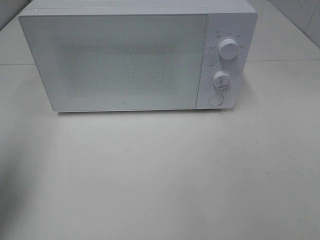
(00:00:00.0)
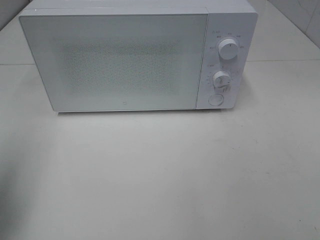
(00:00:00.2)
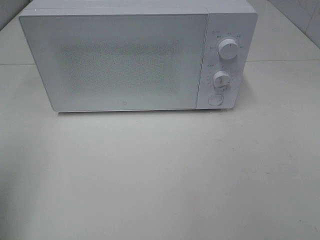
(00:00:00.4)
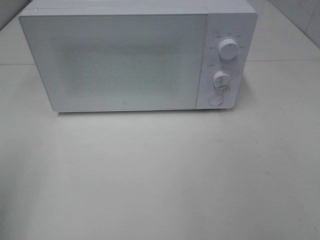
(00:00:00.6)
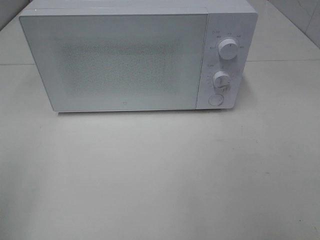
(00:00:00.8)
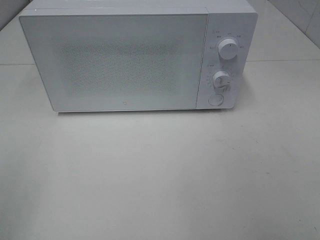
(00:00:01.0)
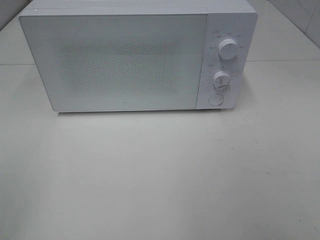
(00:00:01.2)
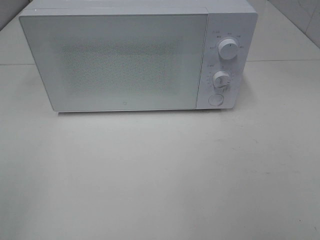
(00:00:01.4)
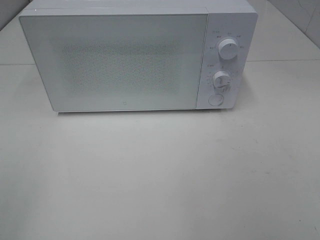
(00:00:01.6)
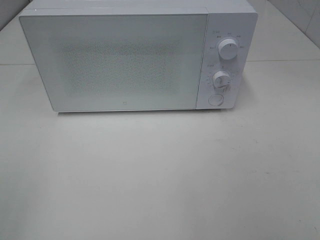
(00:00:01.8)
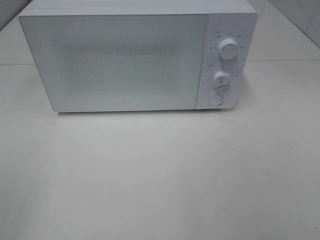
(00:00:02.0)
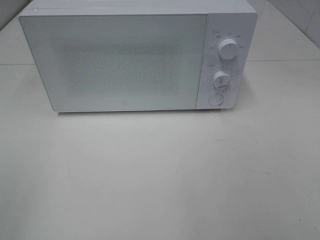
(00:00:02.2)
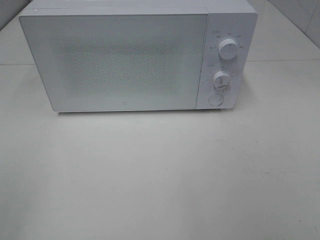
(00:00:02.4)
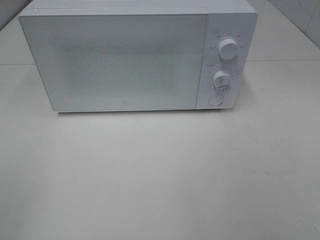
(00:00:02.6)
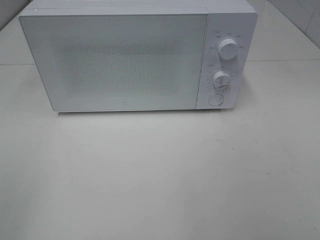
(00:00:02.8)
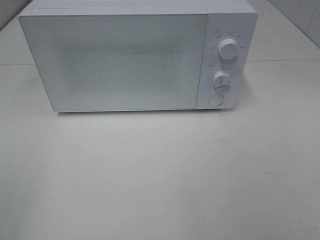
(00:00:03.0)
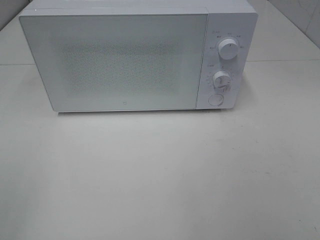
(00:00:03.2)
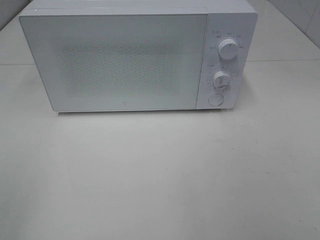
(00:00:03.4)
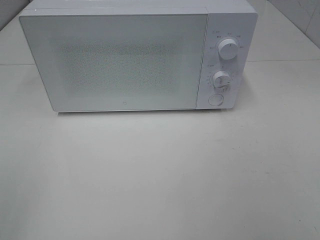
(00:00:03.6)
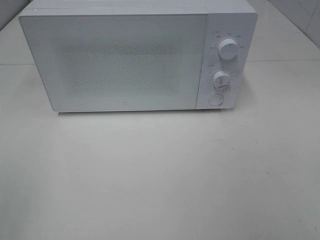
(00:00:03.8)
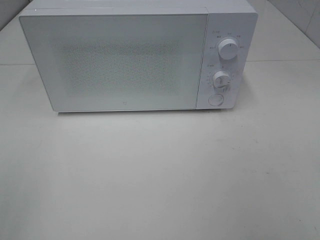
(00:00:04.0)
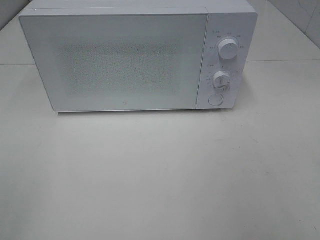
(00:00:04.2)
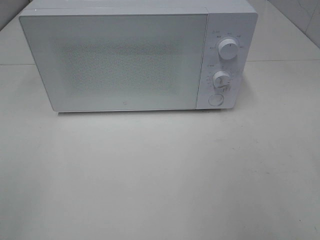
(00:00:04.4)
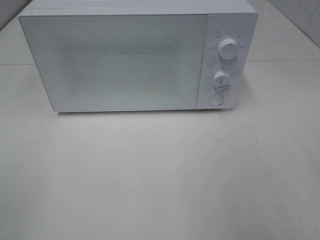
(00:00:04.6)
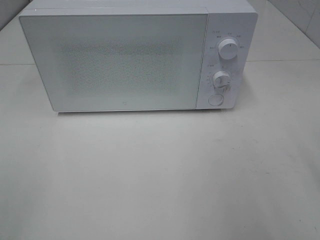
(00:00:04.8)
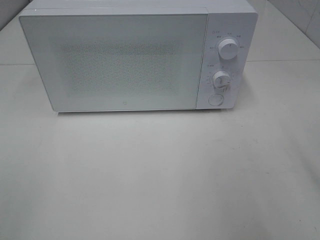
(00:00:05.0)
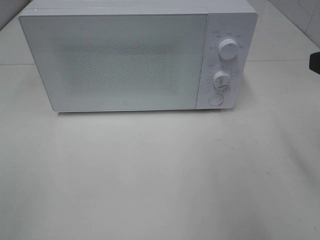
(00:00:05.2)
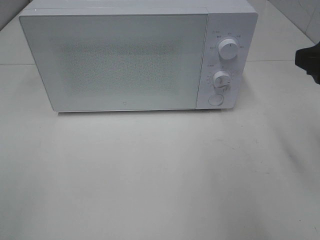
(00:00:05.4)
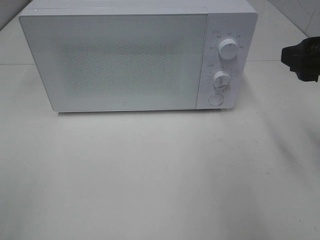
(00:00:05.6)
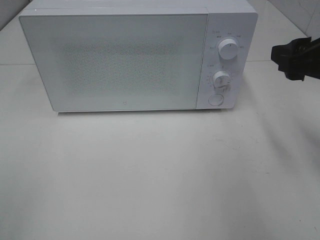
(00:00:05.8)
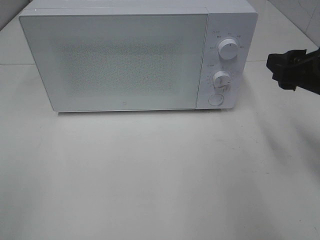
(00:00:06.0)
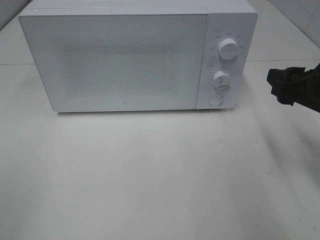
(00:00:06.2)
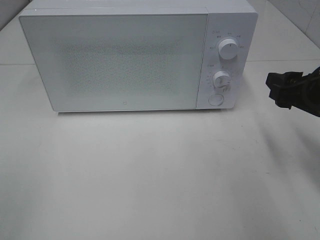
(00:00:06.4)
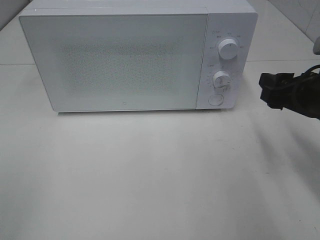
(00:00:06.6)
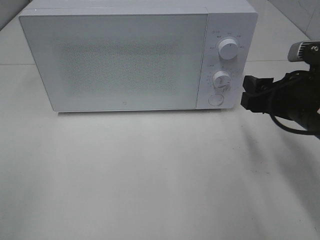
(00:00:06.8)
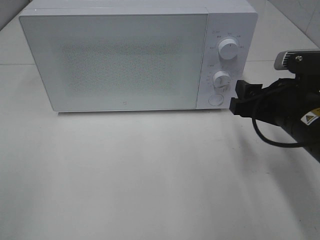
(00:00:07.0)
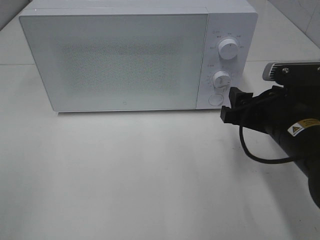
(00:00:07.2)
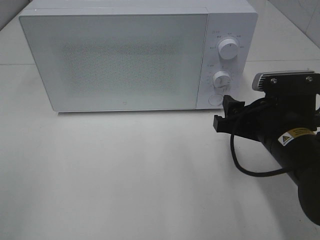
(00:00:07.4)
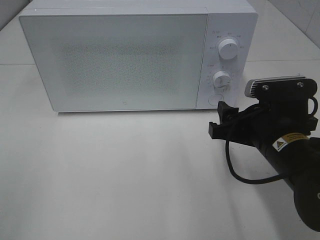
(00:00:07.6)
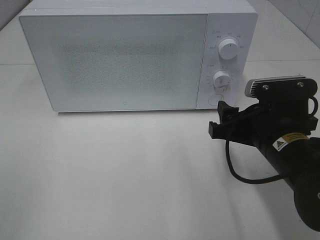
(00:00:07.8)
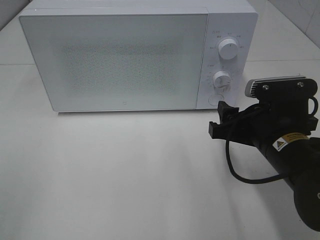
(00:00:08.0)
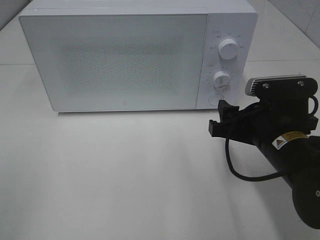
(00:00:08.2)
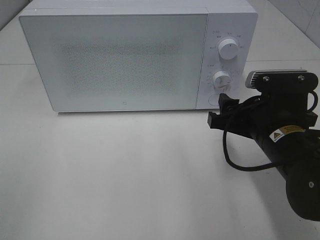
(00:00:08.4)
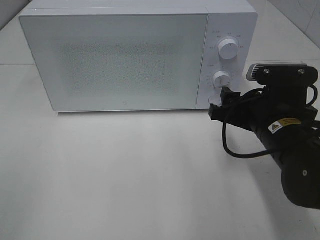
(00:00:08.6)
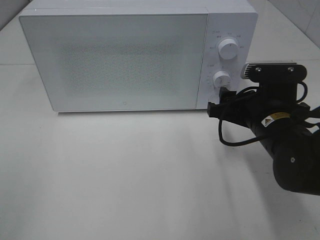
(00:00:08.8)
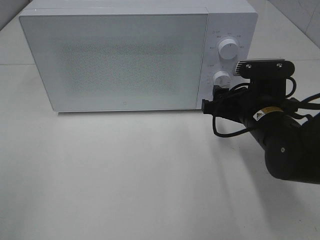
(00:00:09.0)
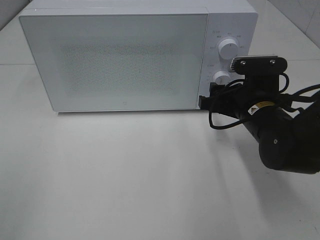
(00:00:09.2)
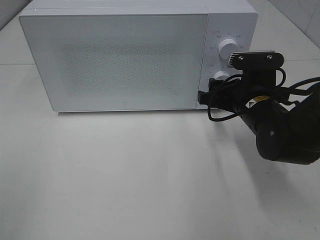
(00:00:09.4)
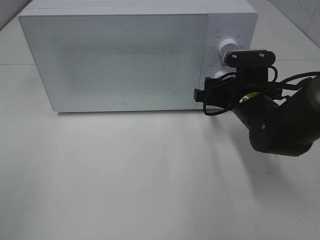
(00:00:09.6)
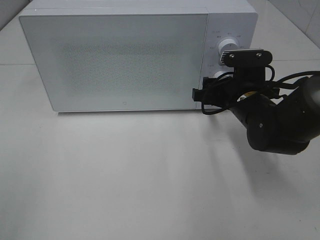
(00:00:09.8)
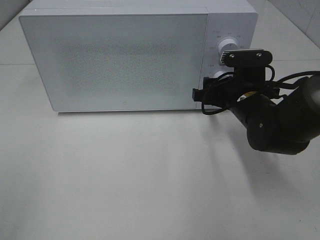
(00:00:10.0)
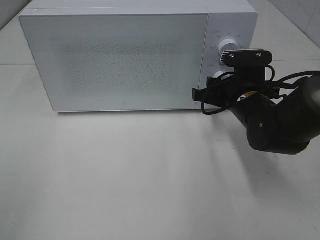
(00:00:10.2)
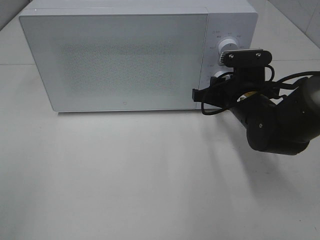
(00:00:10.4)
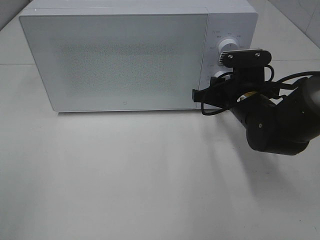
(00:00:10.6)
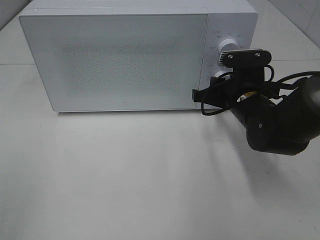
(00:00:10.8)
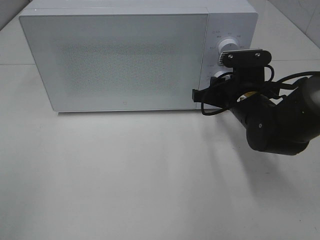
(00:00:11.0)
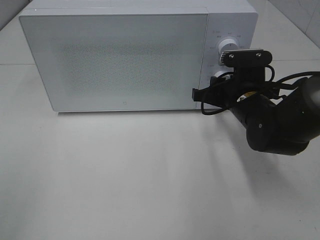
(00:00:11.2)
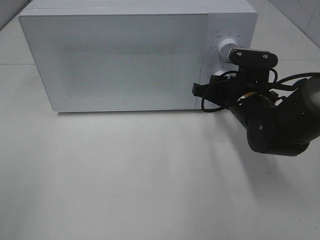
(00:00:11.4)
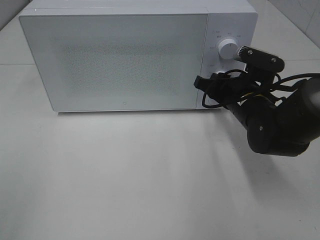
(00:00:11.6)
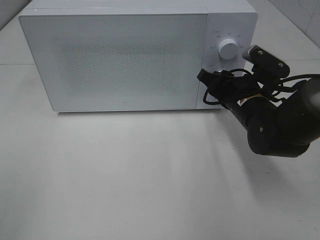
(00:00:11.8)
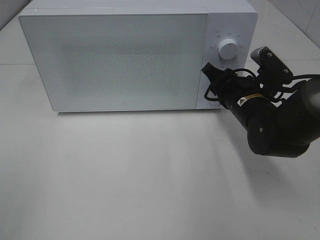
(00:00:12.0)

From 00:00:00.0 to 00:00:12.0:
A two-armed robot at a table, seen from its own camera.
Task of the whole recording: Heat Sandwich.
From 00:00:00.0 to 00:00:01.6: The left gripper goes about 20 cm backward.
From 00:00:01.6 to 00:00:03.0: The two grippers keep their place.
From 00:00:04.4 to 00:00:06.0: The right gripper heads forward and downward, covering roughly 15 cm.
From 00:00:06.0 to 00:00:07.6: The right gripper is displaced downward and to the left by approximately 10 cm.
From 00:00:07.6 to 00:00:09.0: The right gripper heads forward, covering approximately 5 cm.
From 00:00:09.0 to 00:00:10.4: The right gripper shifts approximately 5 cm forward, and closes its fingers.

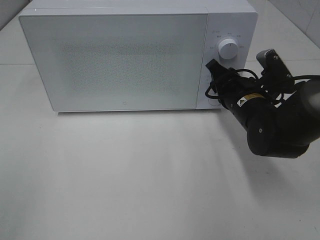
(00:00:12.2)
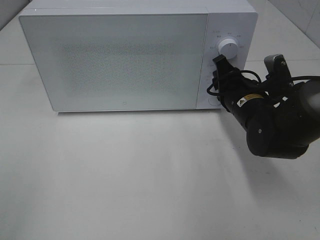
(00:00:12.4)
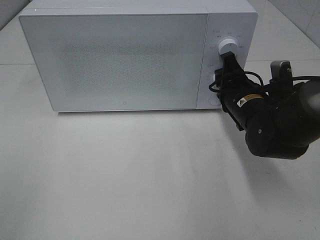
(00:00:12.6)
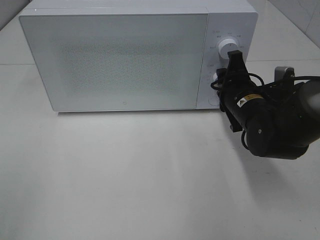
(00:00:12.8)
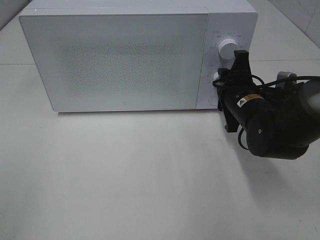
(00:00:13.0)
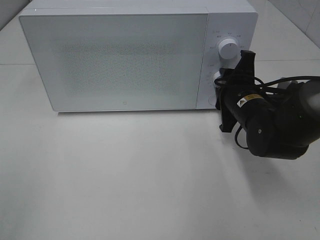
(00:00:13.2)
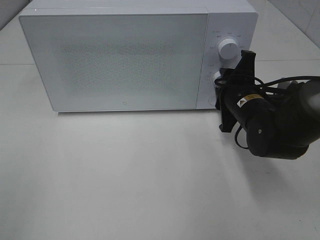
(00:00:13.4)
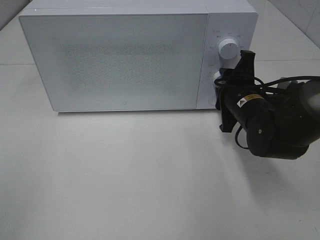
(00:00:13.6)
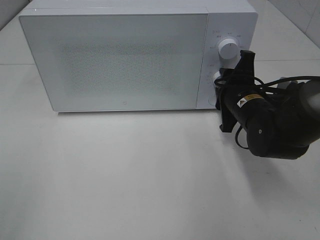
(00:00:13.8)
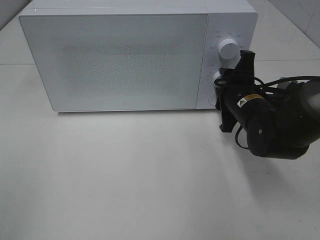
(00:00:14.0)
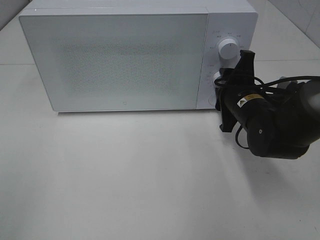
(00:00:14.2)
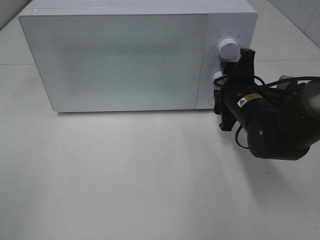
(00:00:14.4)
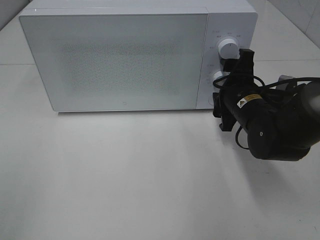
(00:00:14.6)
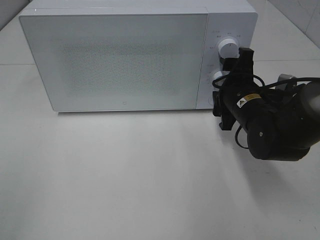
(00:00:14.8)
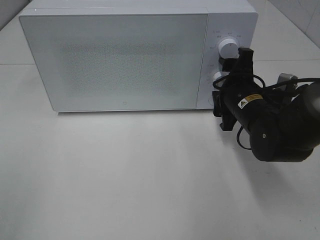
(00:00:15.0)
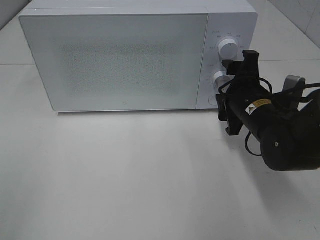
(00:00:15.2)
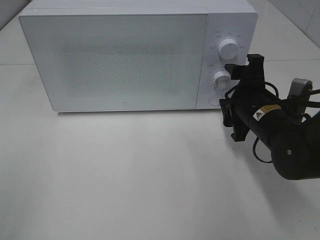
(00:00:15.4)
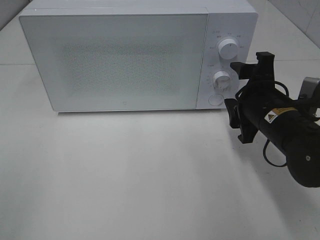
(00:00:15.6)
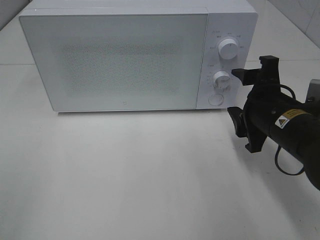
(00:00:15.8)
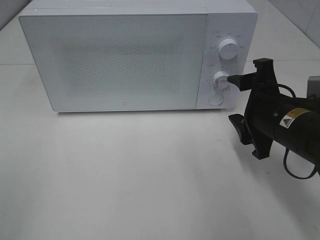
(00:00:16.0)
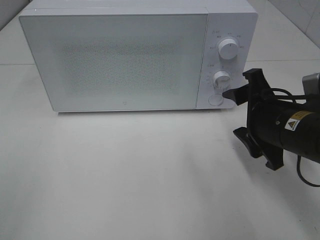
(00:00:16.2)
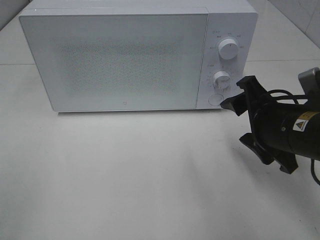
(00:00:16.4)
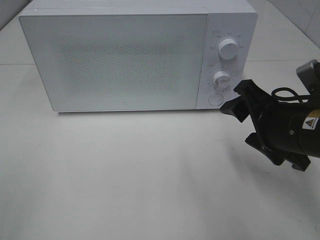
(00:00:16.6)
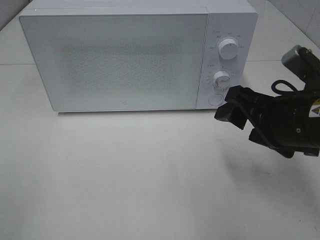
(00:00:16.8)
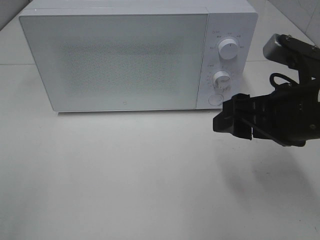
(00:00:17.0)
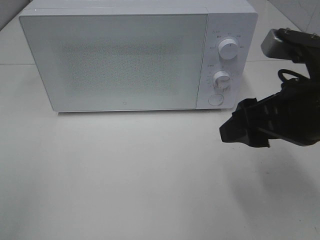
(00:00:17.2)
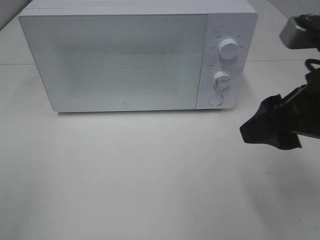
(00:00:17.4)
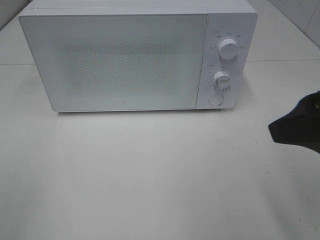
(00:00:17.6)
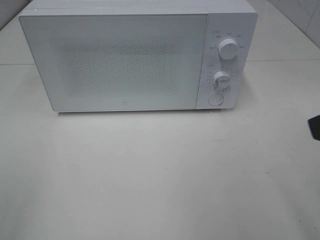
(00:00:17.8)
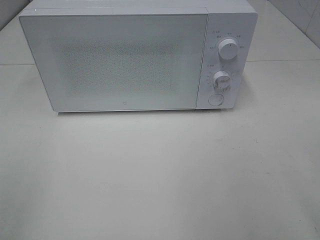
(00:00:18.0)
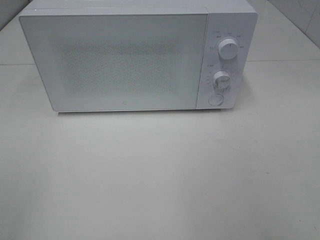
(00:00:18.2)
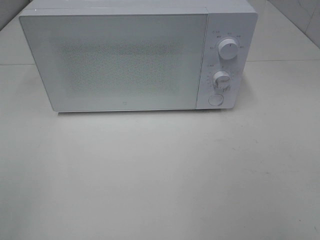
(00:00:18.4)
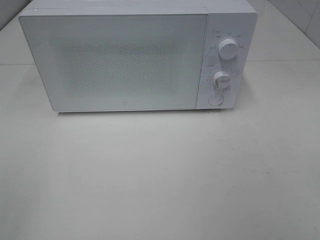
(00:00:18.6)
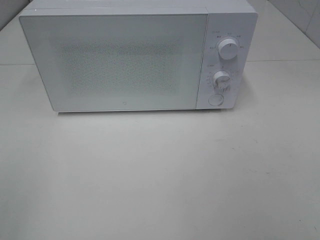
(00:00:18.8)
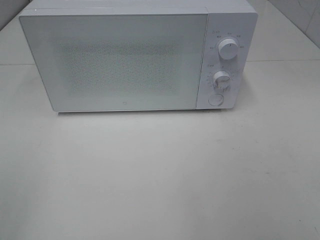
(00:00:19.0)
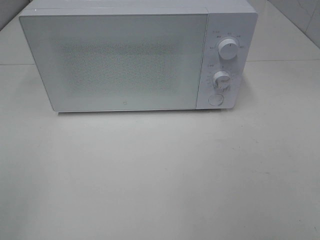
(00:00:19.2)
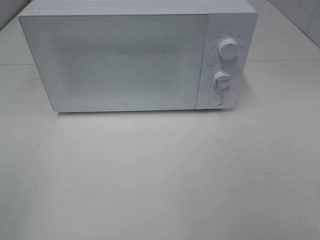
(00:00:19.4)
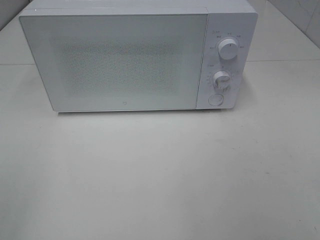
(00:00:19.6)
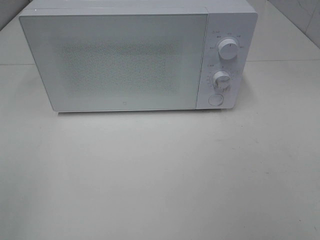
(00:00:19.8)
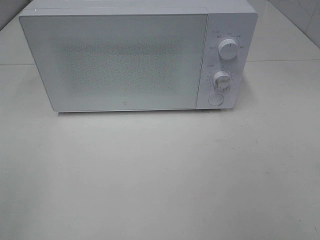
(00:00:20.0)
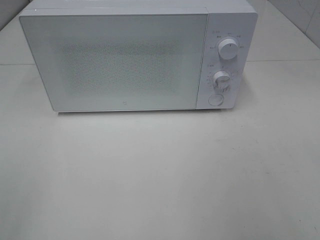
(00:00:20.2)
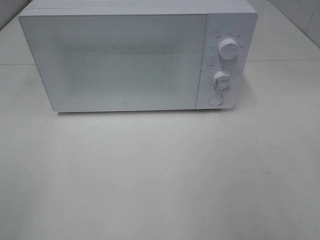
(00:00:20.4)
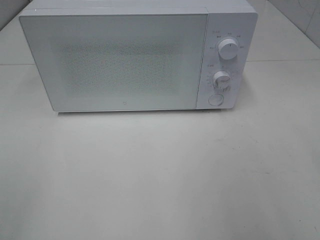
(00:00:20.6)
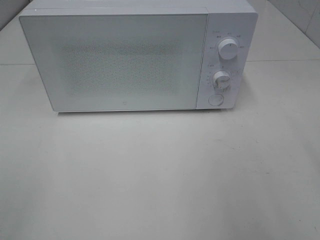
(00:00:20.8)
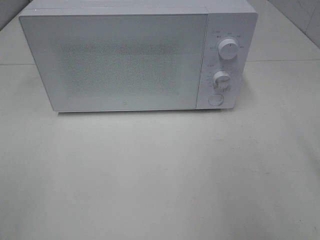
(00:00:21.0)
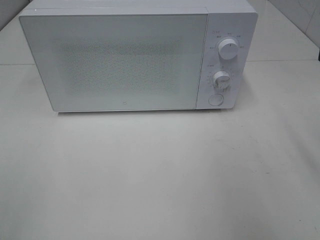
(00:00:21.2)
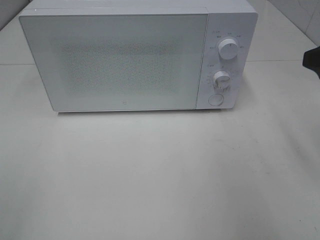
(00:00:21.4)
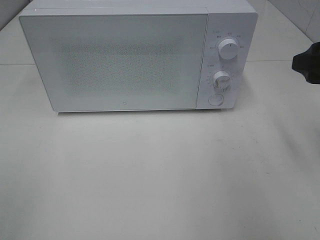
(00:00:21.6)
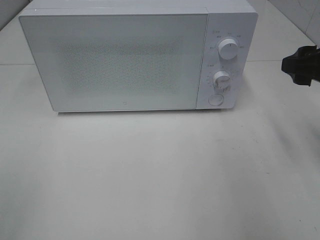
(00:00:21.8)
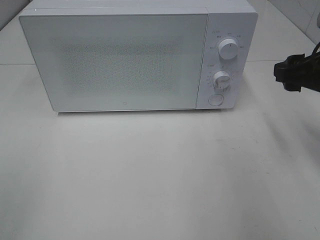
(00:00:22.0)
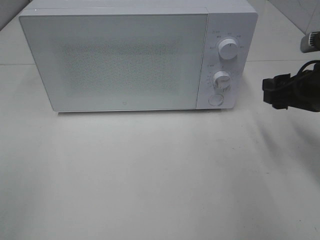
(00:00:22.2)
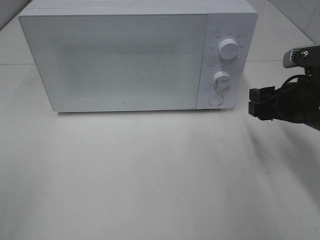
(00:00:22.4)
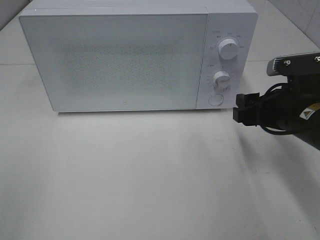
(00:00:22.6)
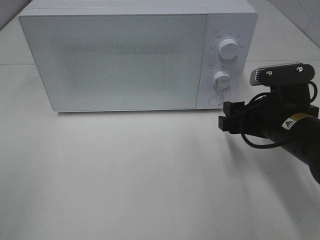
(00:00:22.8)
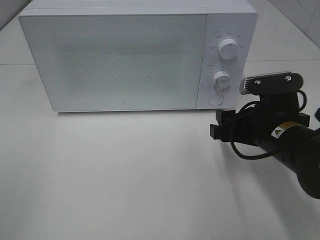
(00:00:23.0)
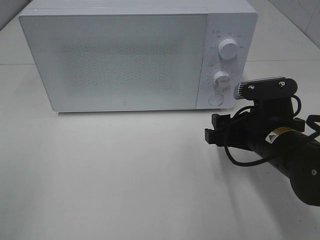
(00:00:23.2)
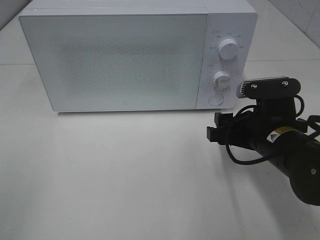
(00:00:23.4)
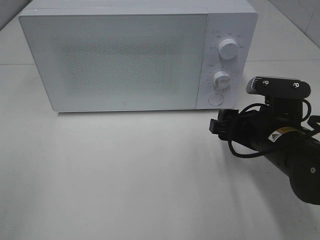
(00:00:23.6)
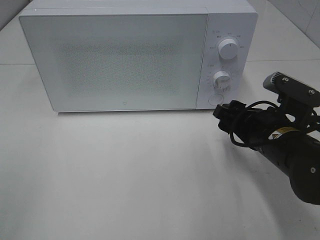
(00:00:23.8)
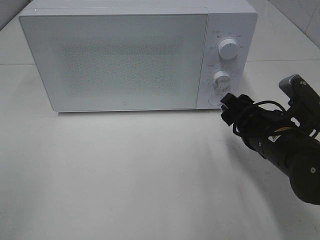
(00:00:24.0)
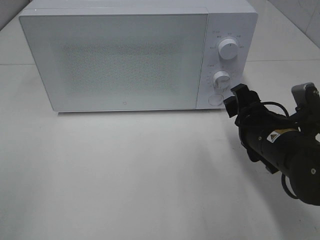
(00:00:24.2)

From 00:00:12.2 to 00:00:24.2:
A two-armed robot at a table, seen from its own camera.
Task of the whole recording: Heat Sandwich.
Step, from 00:00:12.2 to 00:00:15.0: Right hand: twist timer button.
From 00:00:13.8 to 00:00:15.2: The right gripper opens.
From 00:00:15.2 to 00:00:16.6: The right gripper moves backward and upward, some 10 cm.
From 00:00:16.6 to 00:00:18.2: The right gripper shifts approximately 25 cm backward, upward and to the right.
From 00:00:21.2 to 00:00:22.6: The right gripper heads downward, to the left and forward, covering about 15 cm.
